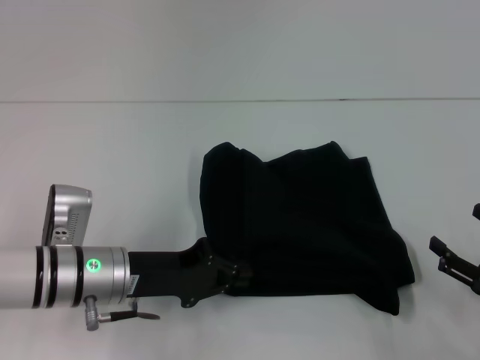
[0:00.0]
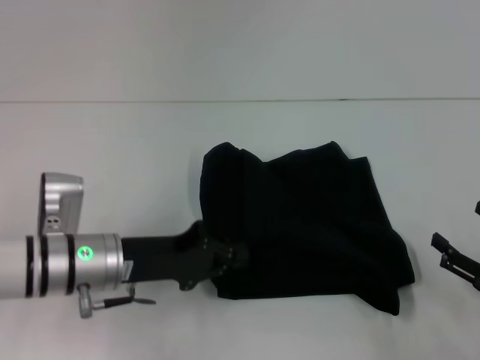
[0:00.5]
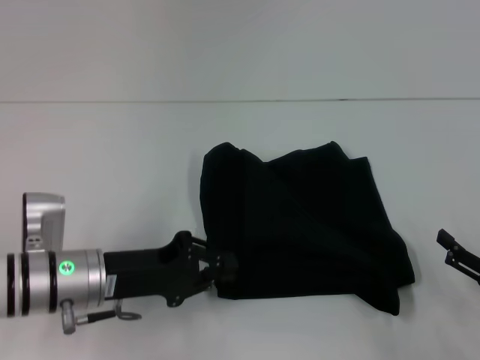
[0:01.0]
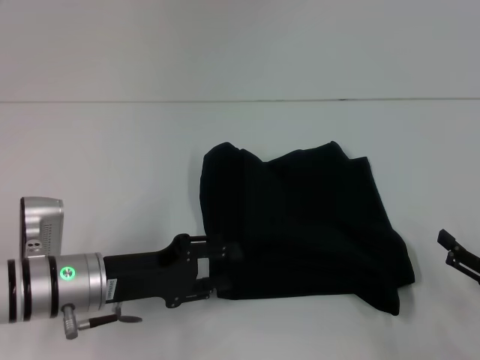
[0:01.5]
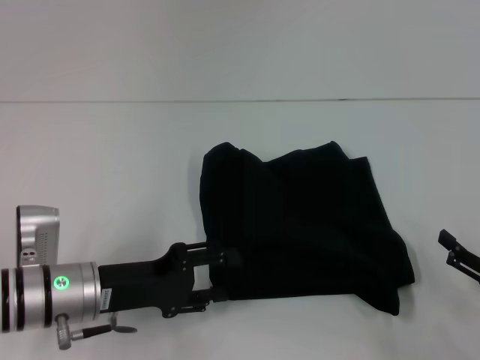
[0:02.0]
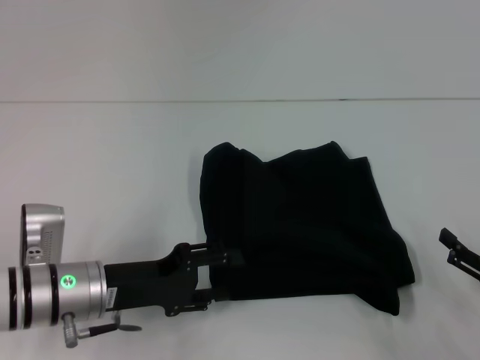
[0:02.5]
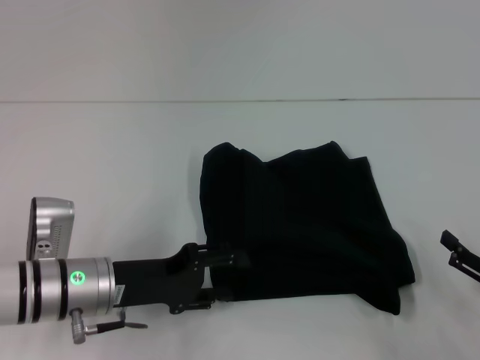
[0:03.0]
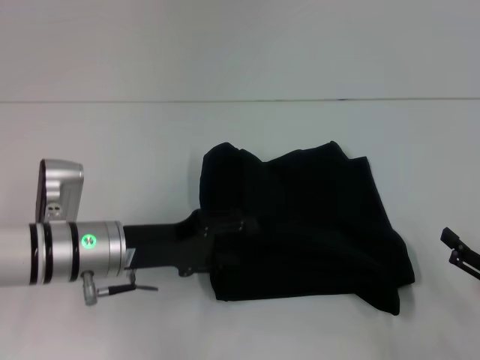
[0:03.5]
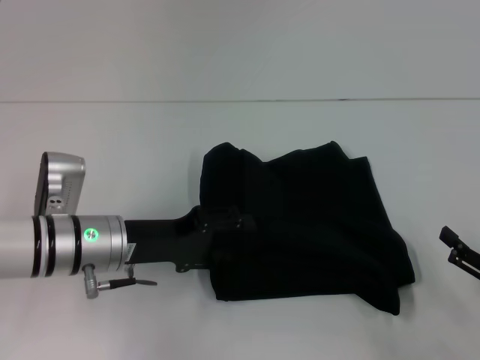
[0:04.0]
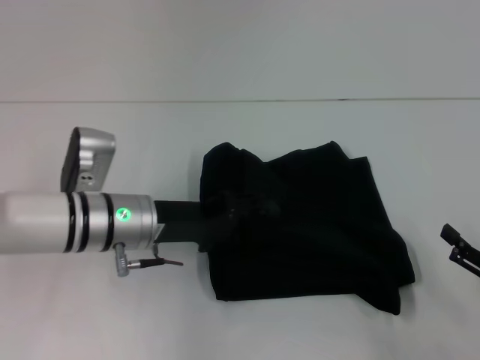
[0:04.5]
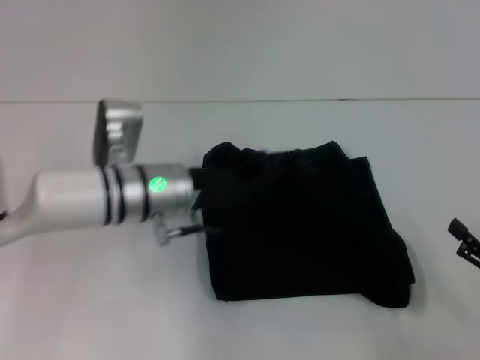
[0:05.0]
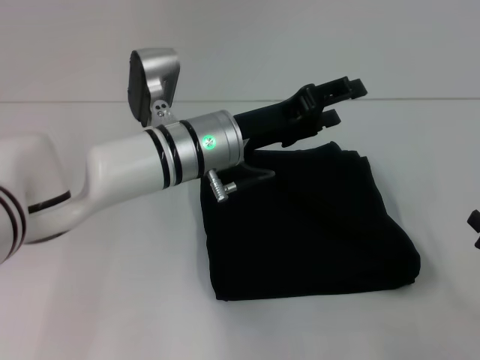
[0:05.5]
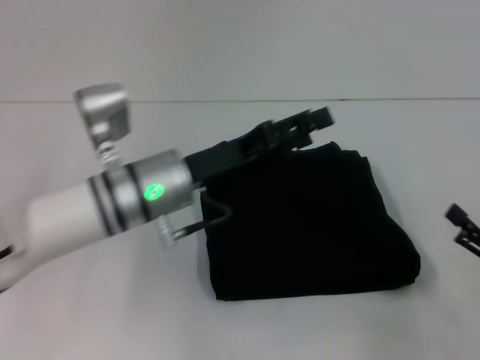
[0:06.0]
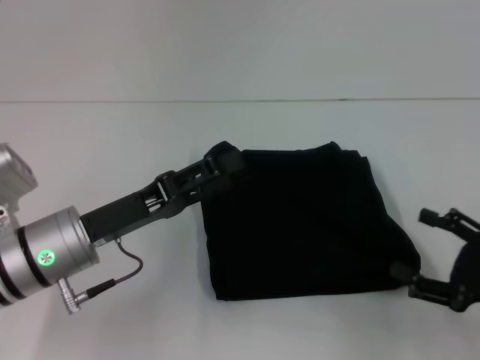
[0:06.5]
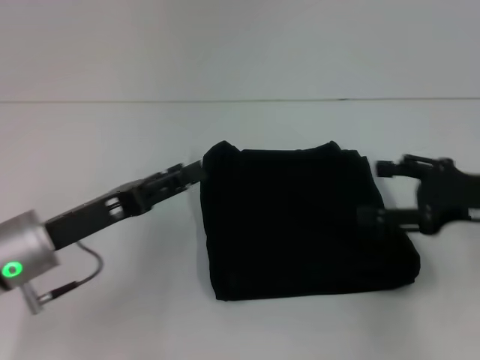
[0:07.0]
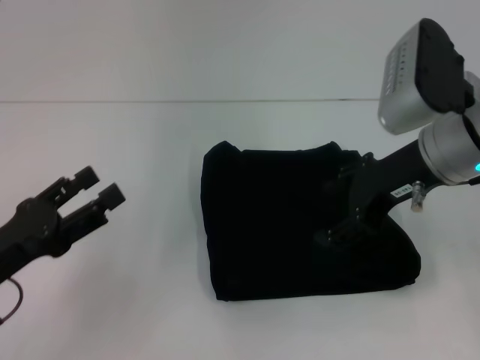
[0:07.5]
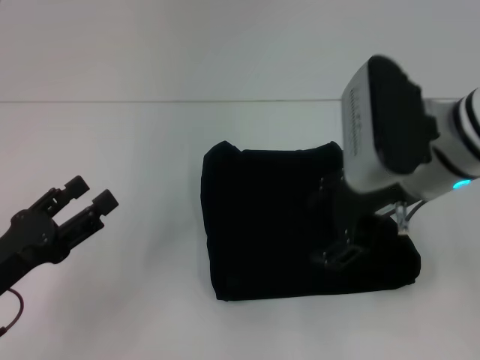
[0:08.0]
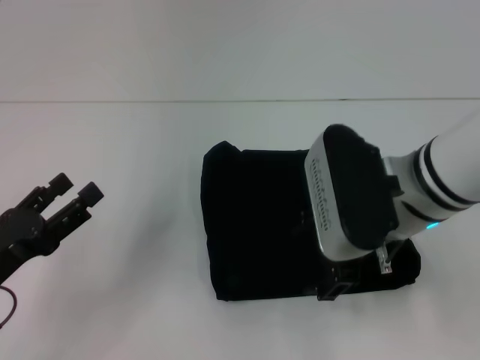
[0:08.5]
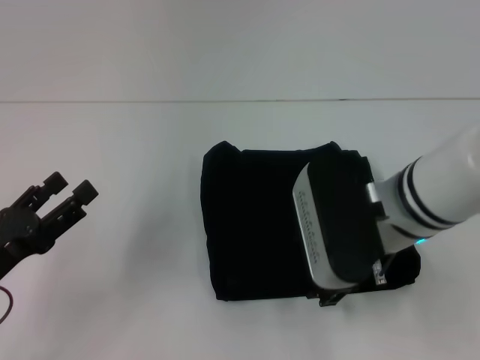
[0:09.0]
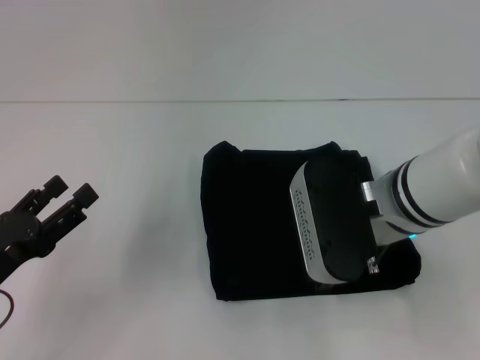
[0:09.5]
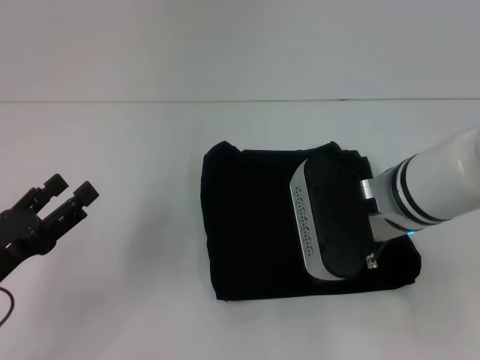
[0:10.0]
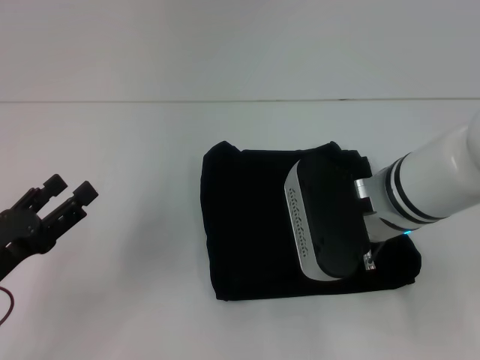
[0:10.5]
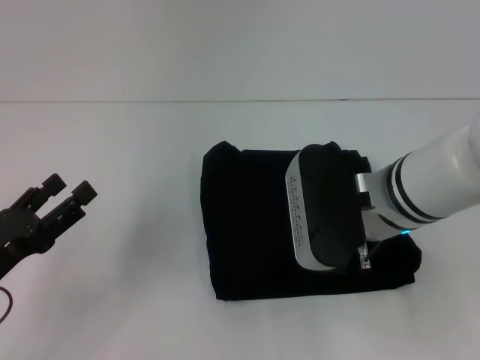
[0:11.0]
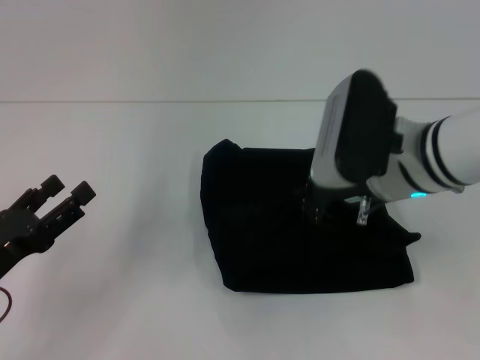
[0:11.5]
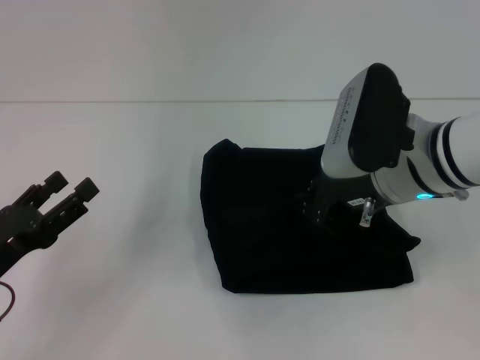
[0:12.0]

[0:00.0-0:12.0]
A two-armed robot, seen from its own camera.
0:00.0 to 0:02.0: The left gripper opens up.
0:02.0 to 0:04.0: The left gripper ends up some 5 cm from where it was.
0:04.0 to 0:06.0: The left gripper is displaced to the right by some 5 cm.
0:06.0 to 0:08.0: The right gripper shifts about 25 cm to the left, upward and forward. The left gripper travels to the left and backward by about 20 cm.
0:08.0 to 0:10.0: The right gripper goes roughly 5 cm downward.
0:10.0 to 0:12.0: The right gripper closes up.

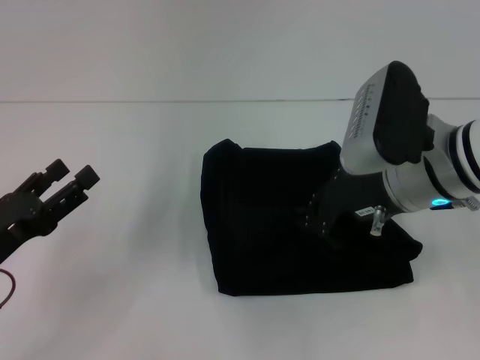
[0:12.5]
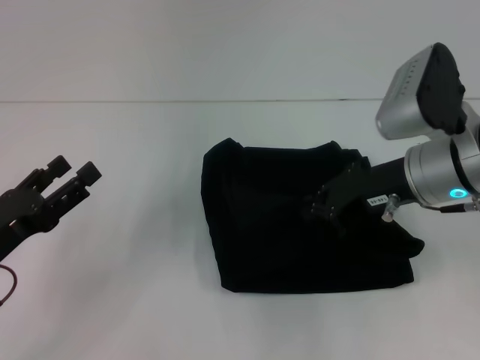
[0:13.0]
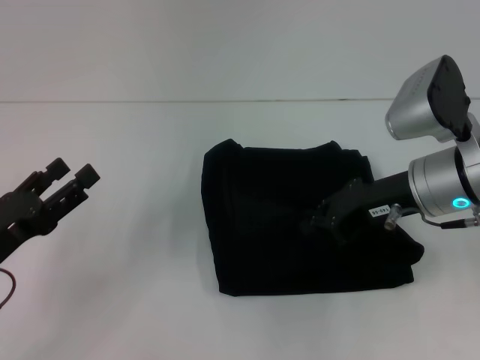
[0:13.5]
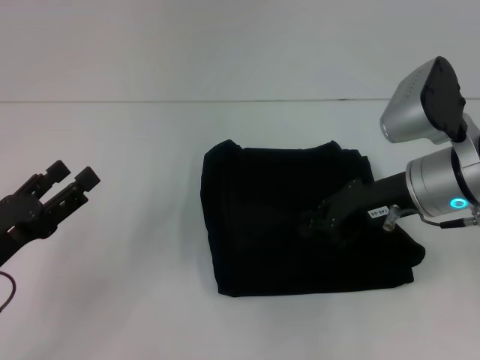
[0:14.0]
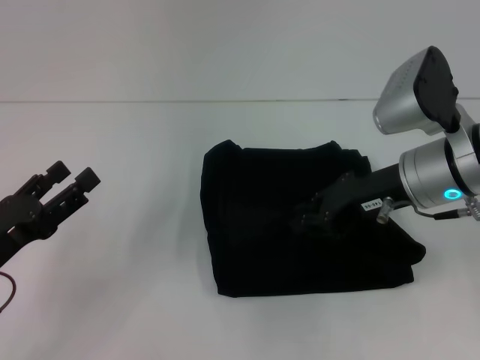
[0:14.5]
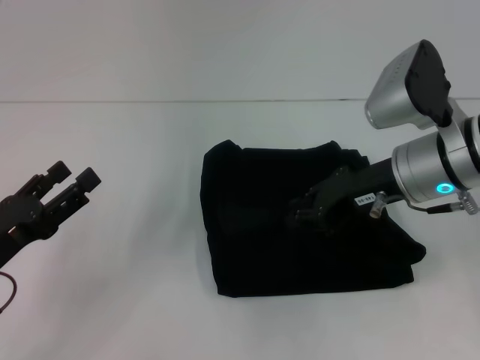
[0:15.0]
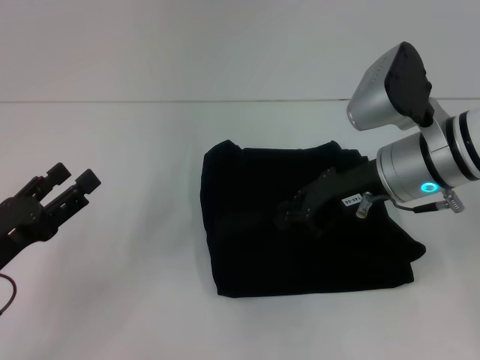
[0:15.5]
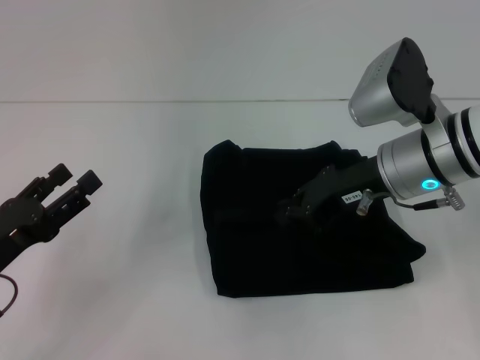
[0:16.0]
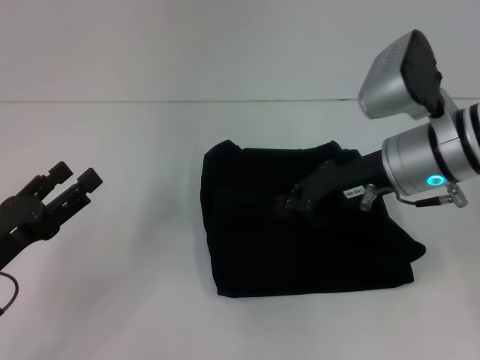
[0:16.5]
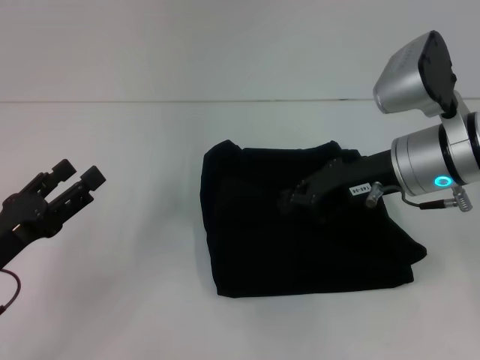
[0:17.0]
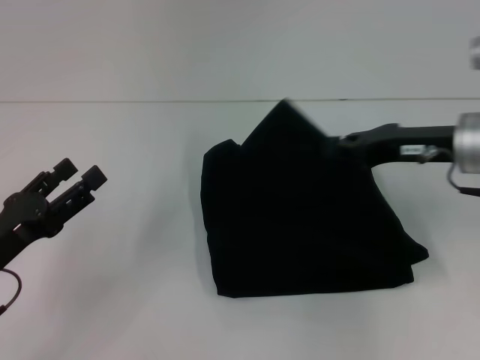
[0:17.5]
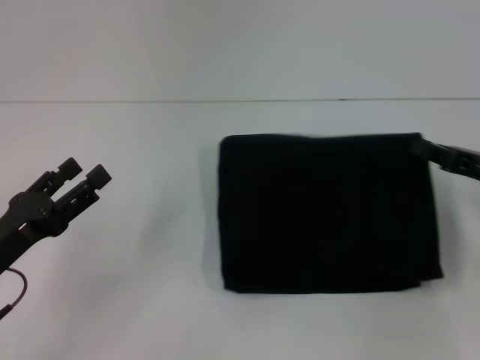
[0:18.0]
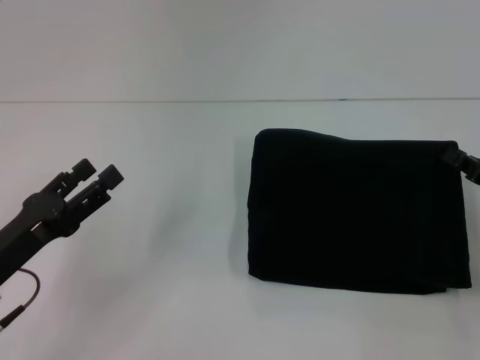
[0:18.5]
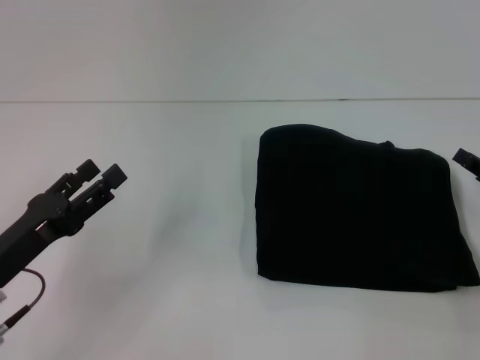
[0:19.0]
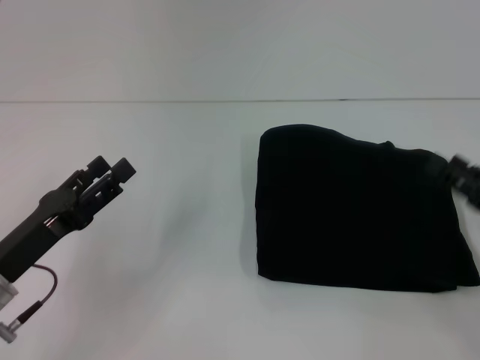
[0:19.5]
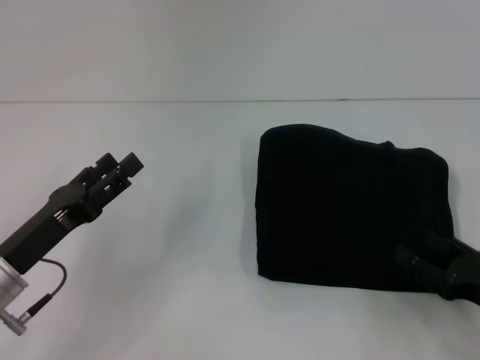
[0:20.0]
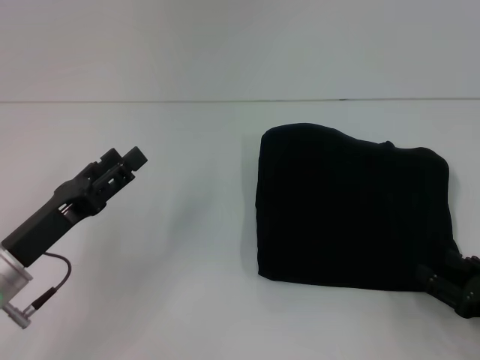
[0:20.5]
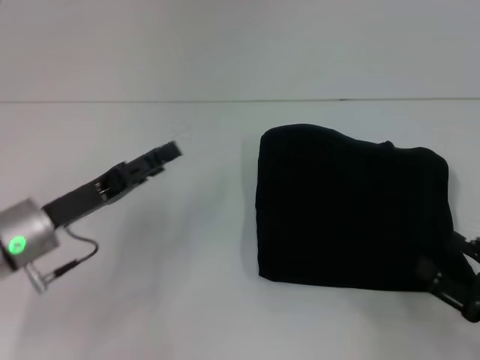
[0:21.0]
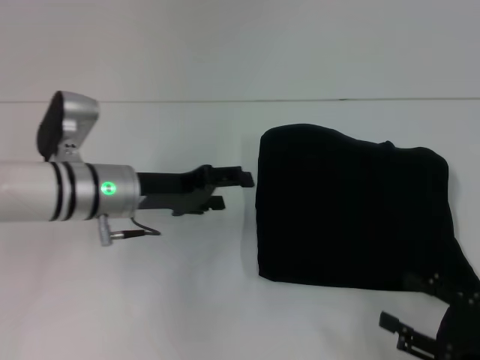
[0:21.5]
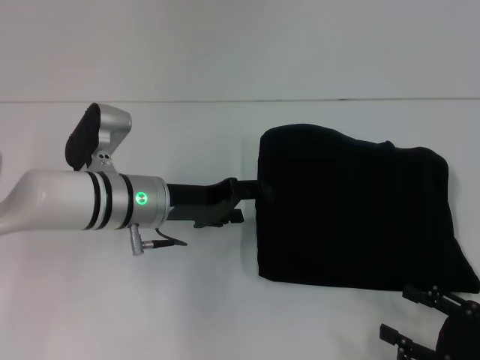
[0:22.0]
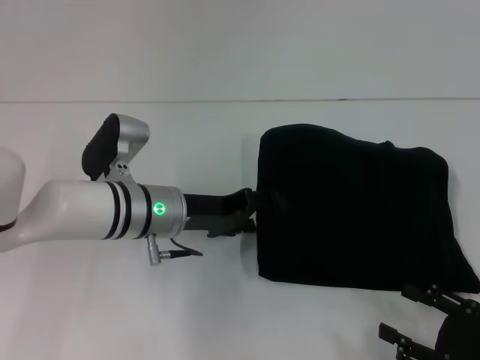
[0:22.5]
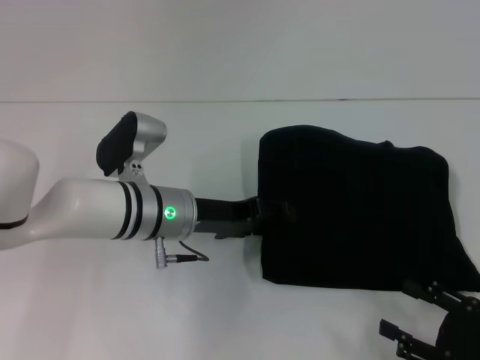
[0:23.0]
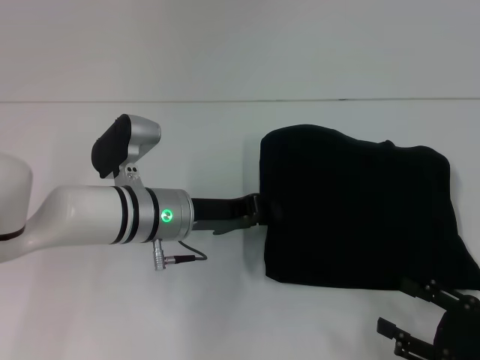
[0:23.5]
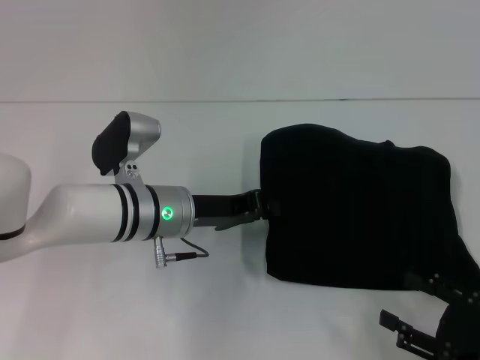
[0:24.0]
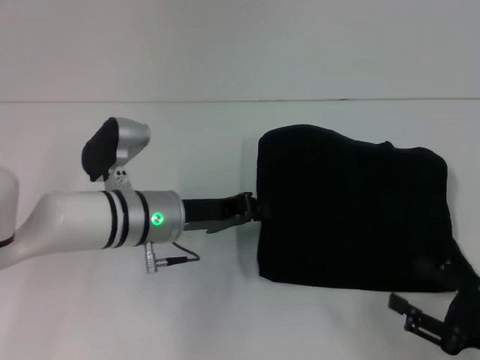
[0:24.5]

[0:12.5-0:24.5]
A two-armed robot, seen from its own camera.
0:14.5 to 0:16.5: The grippers make only small movements.
0:16.5 to 0:18.5: The right gripper travels to the right and downward by roughly 20 cm.
0:18.5 to 0:20.5: The right gripper goes approximately 10 cm backward and downward, and opens.
0:20.5 to 0:22.5: The left gripper shifts roughly 15 cm to the right and forward.
0:22.5 to 0:24.5: The left gripper closes.

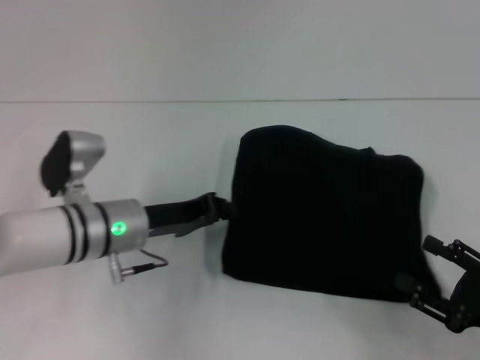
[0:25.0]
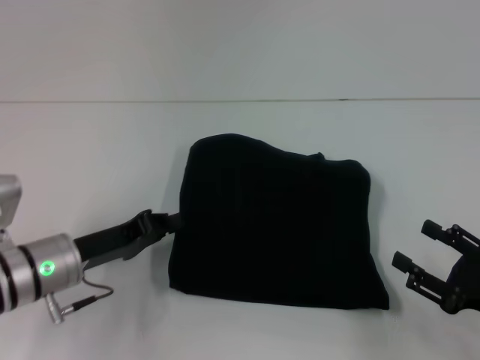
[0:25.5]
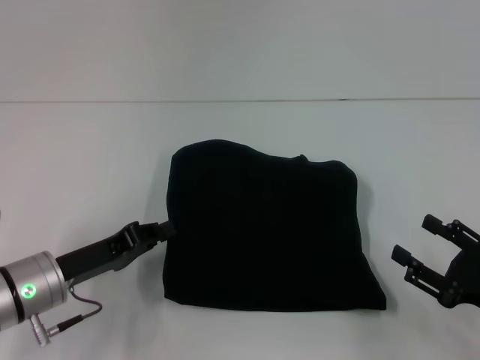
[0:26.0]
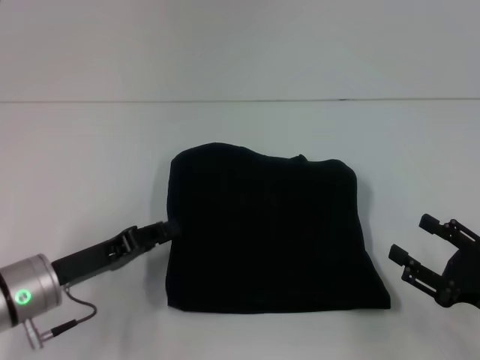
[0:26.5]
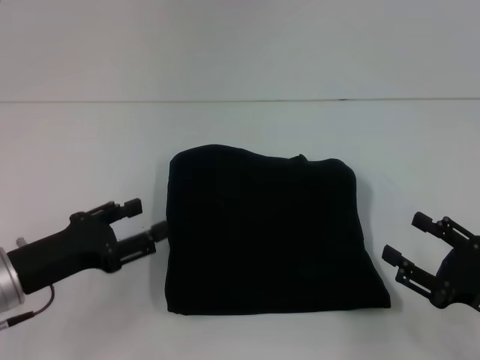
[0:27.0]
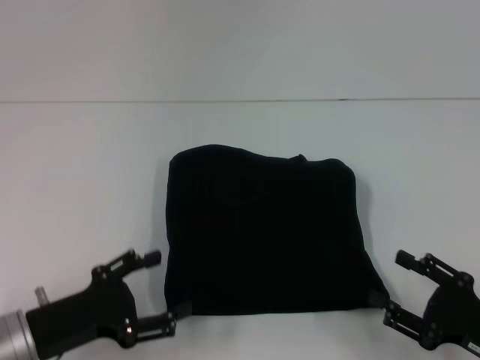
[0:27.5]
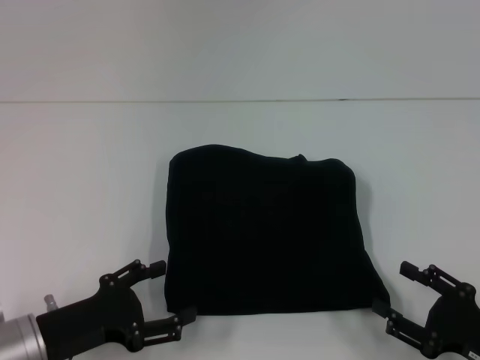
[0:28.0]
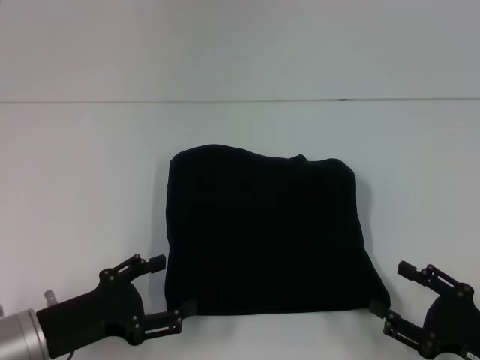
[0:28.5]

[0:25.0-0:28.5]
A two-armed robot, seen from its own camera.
0:25.0 to 0:27.0: The left gripper is displaced to the left and backward by roughly 15 cm, and opens up.
0:27.0 to 0:28.5: The left gripper ends up roughly 5 cm from where it was, and opens its fingers.
